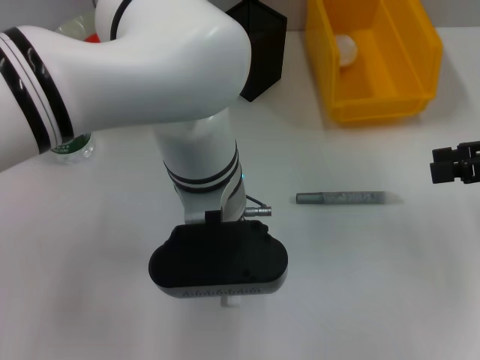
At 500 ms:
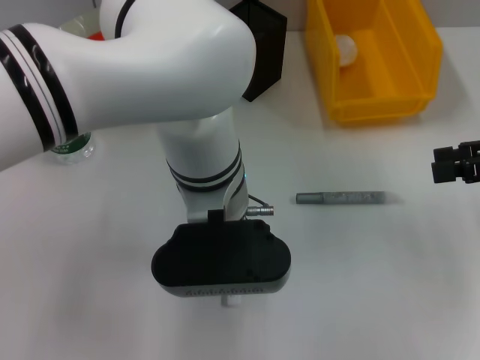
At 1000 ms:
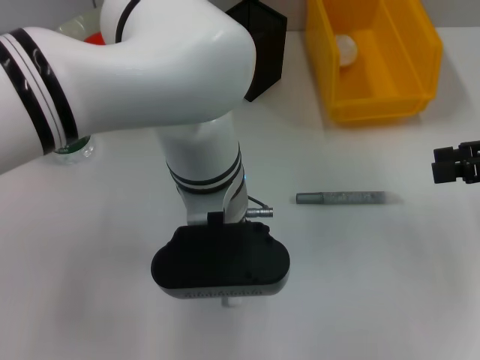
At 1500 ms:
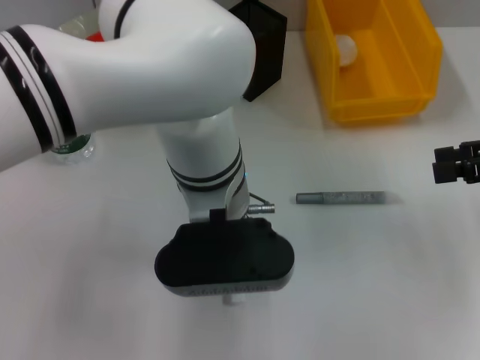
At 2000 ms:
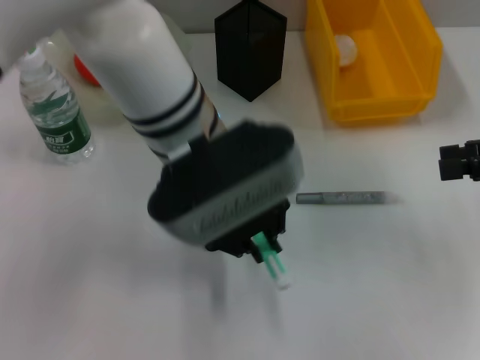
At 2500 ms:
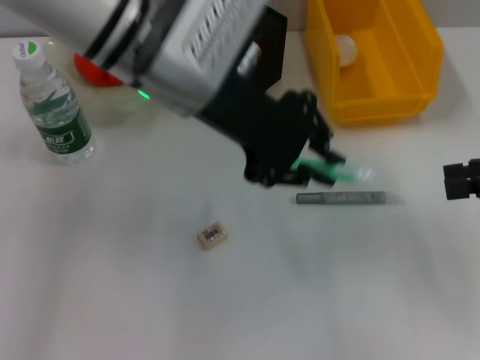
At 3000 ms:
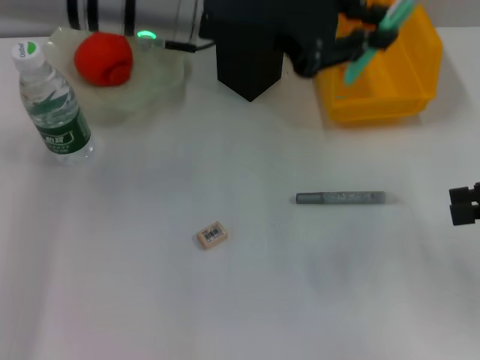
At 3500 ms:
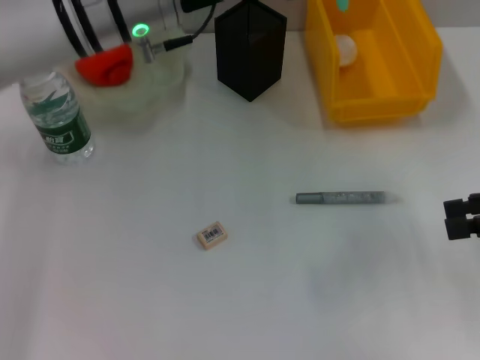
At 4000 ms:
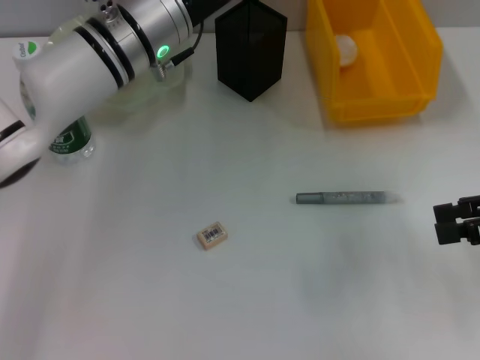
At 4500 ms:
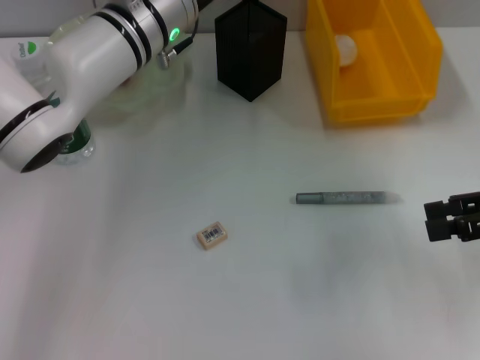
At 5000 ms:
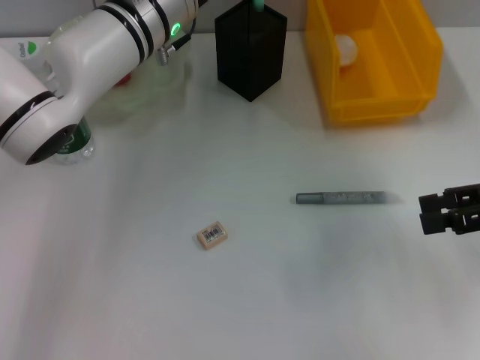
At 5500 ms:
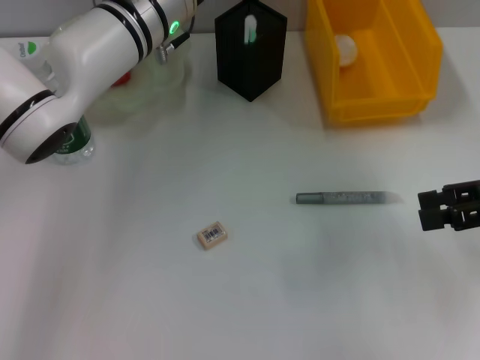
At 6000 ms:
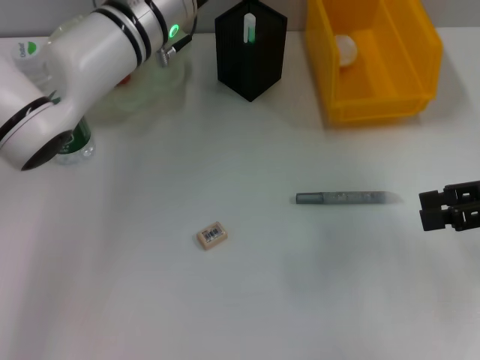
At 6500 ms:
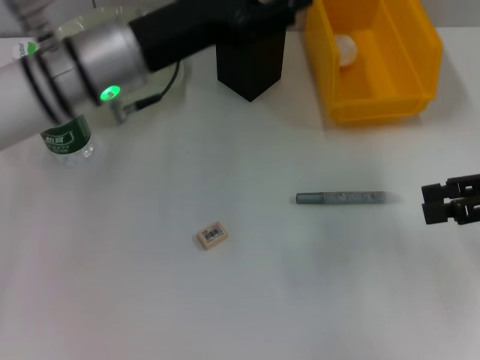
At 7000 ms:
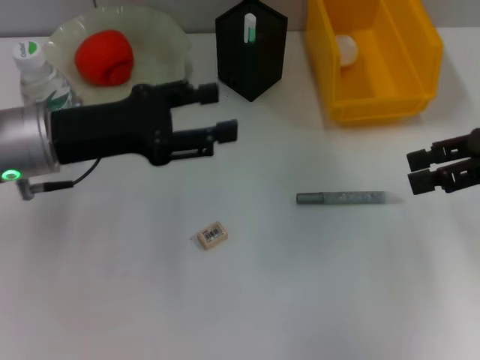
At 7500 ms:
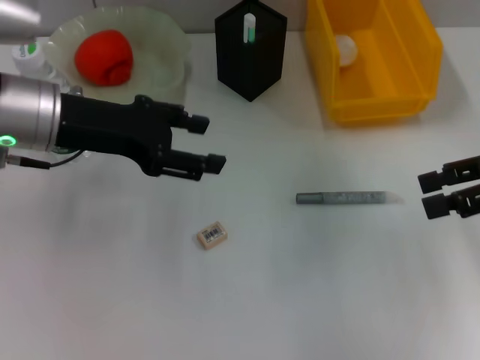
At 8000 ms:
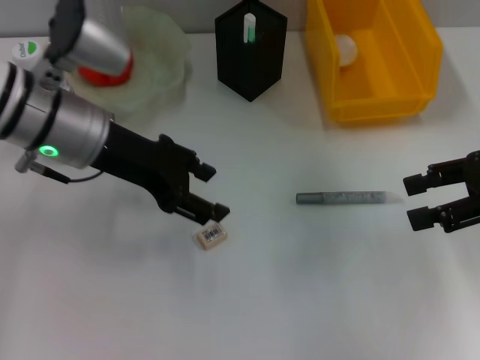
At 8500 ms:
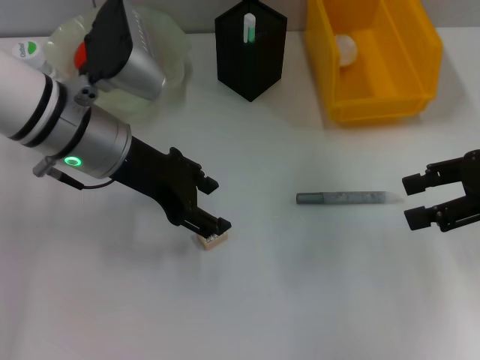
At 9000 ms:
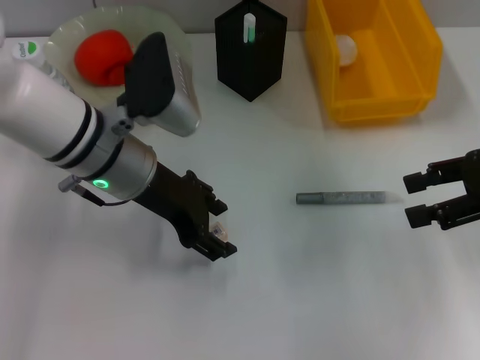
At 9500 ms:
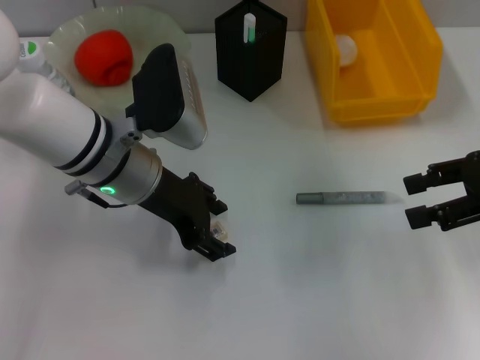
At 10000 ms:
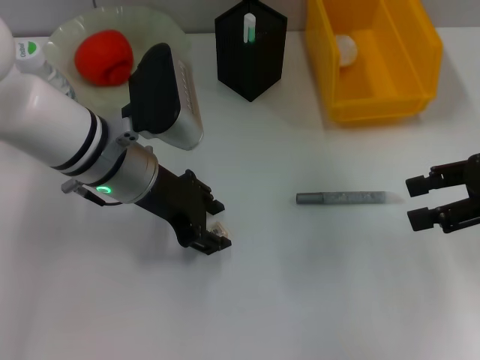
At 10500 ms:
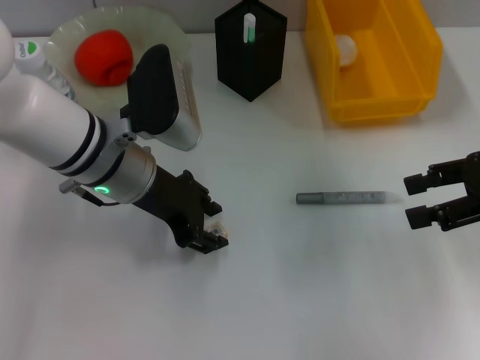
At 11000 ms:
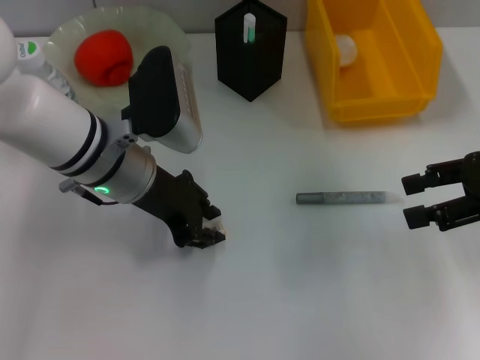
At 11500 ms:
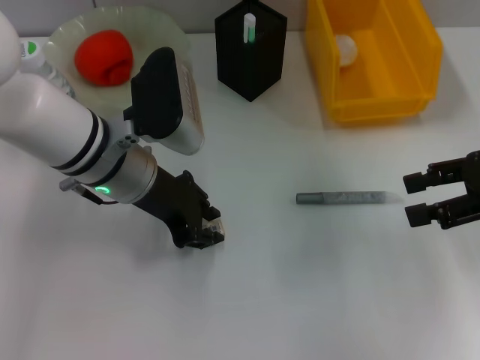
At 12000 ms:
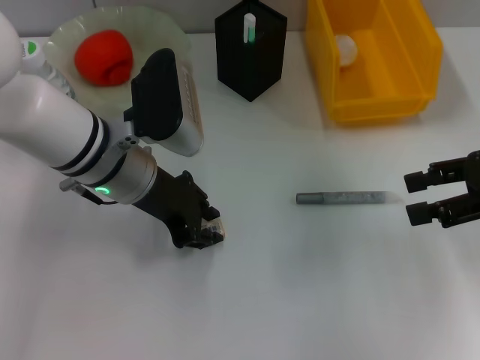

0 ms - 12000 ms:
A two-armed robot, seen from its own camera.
Step, 1500 ms - 5500 ms: Place the blue utility knife into the pen holder with the left hand.
0 ms - 2000 ms: The left gripper shifts by approximately 5 cm.
2000 ms - 4000 ms: The left gripper travels forward and to the left by some 10 cm, and moves roughly 5 cm upward and comes back.
4000 ms - 6000 ms: The left gripper opens its fingers.
6000 ms - 8000 ms: The left gripper goes approximately 10 cm backward and to the left.
8000 ms - 10000 ms: The left gripper moves roughly 5 cm.
10000 ms - 12000 ms: The left gripper closes up.

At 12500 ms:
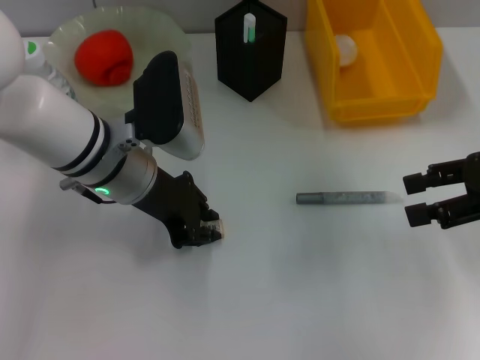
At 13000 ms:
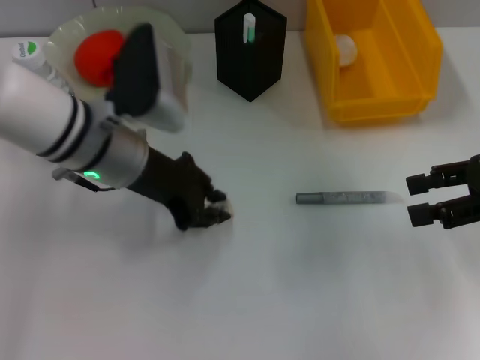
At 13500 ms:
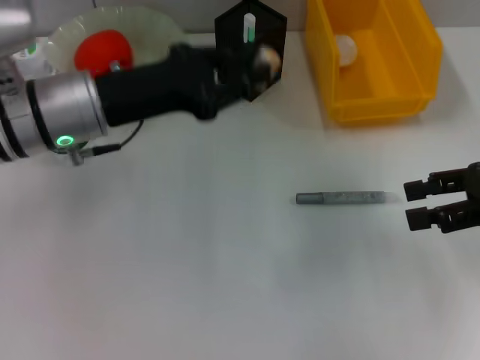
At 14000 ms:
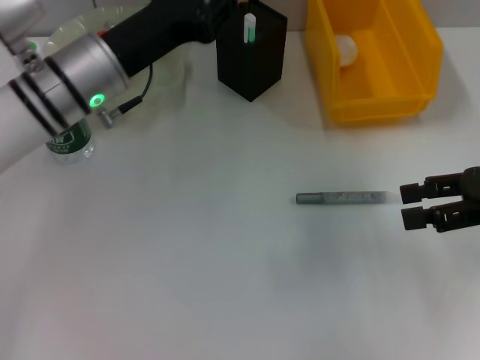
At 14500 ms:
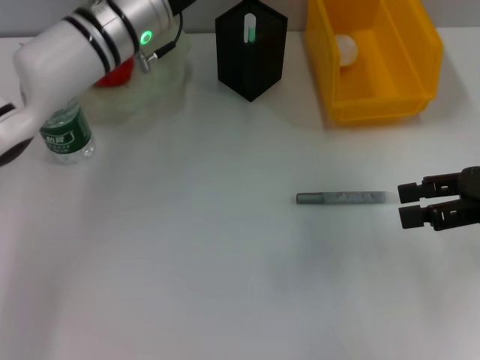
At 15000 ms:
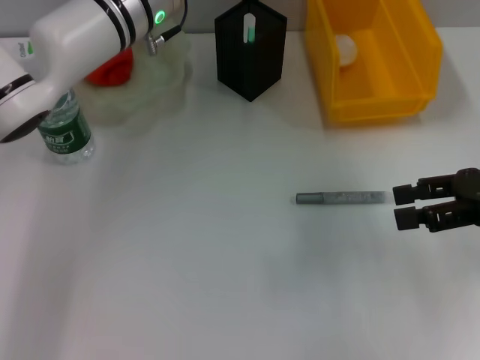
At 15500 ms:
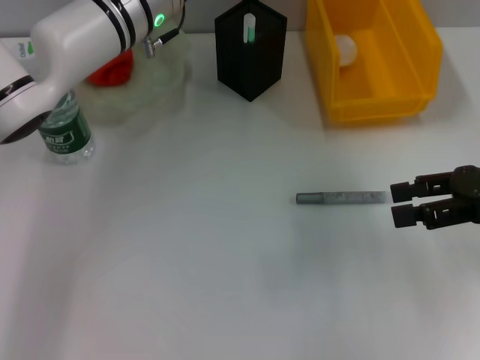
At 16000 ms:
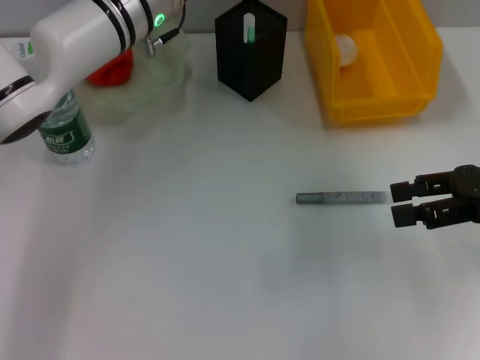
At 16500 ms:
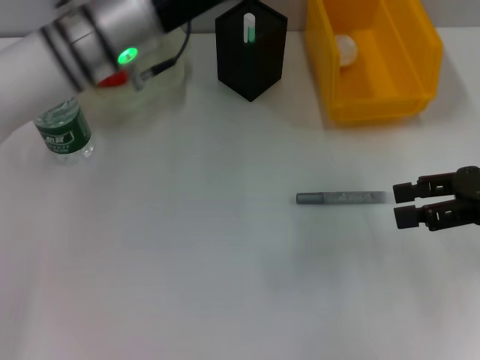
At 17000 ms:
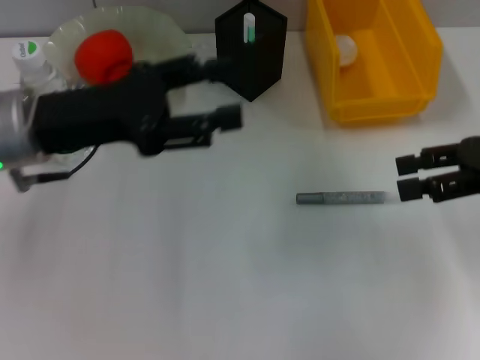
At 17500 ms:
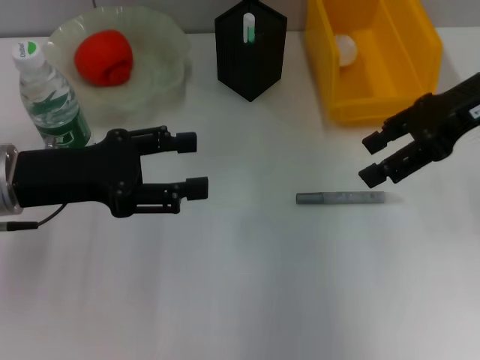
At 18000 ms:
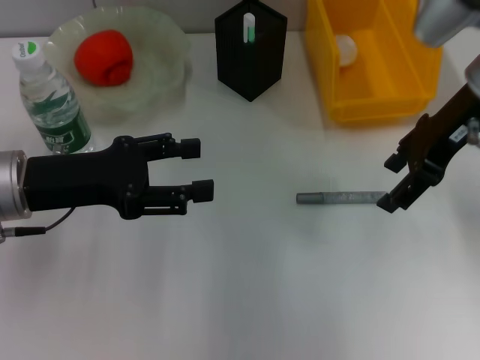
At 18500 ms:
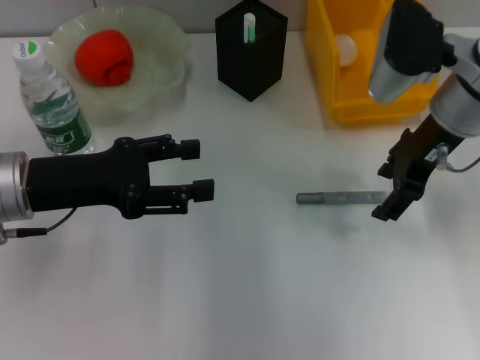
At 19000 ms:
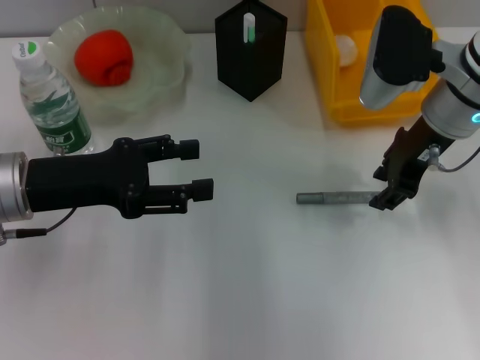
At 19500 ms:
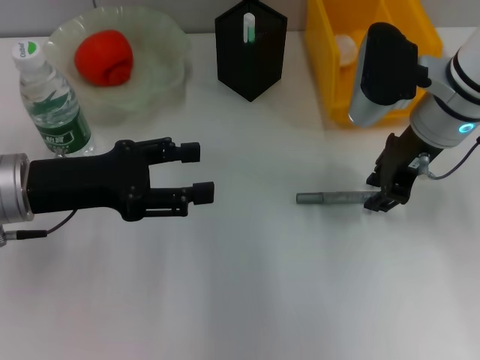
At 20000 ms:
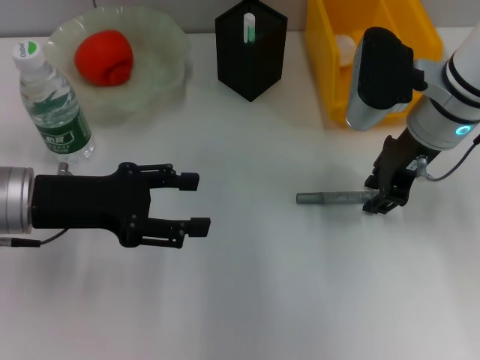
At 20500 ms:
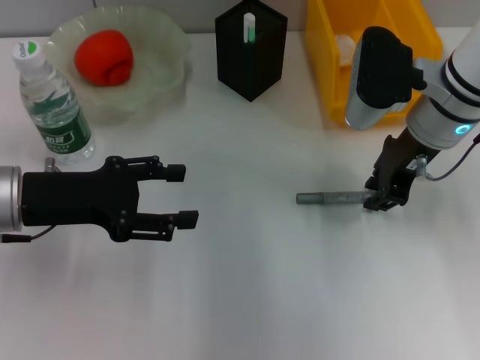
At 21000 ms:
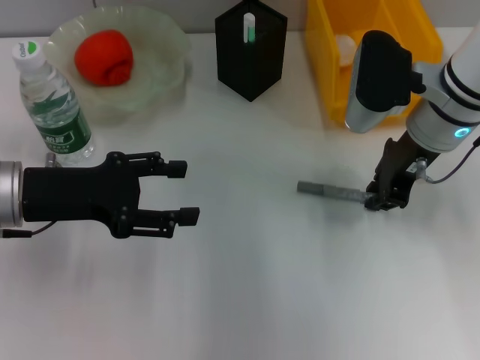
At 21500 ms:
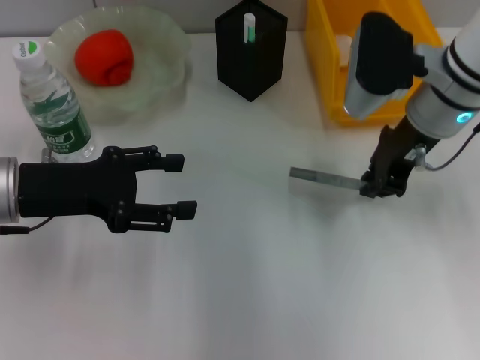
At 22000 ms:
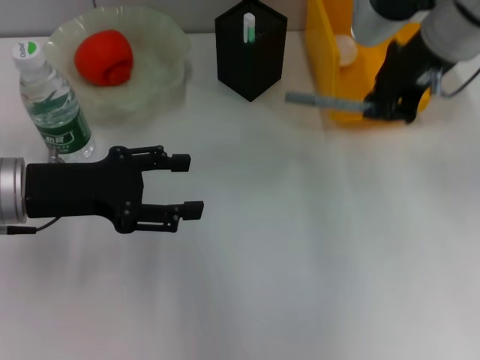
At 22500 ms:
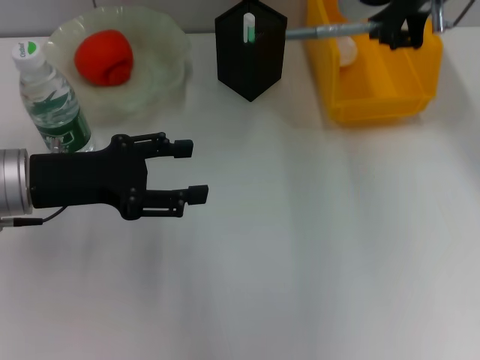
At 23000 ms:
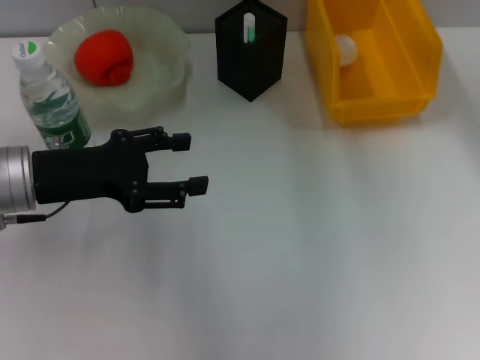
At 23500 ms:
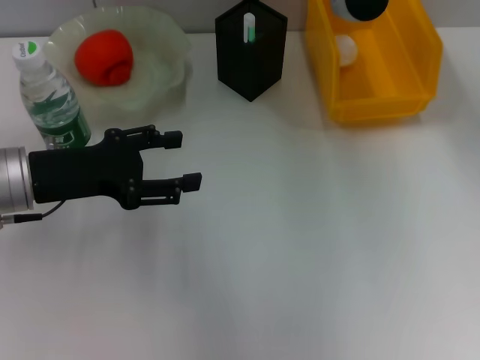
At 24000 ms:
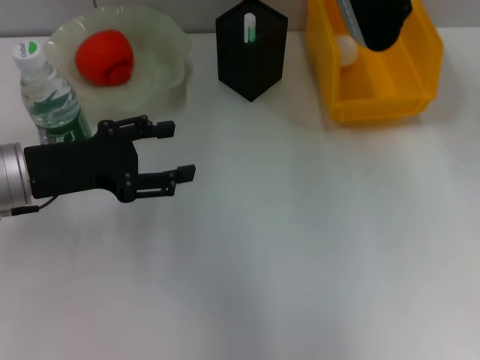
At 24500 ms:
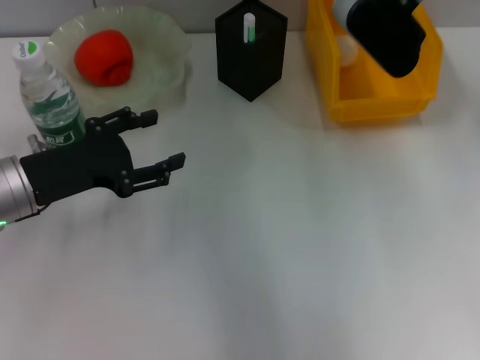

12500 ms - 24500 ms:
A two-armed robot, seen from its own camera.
Step, 13000 ms - 15500 ms: Place the eraser into the pen holder with the left hand.
Step, 16000 ms - 21000 ms: Grab the gray glue with the right hand.
12500 ms - 14500 ms: The left gripper goes some 10 cm forward.
14500 ms - 16500 ms: The left gripper changes place by some 5 cm, and opens up.
16500 ms - 18500 ms: The left gripper goes some 15 cm to the left, backward and downward, while the right gripper moves to the left and forward, some 15 cm.
18500 ms - 20500 ms: The right gripper closes up.
20500 ms - 22500 ms: The right gripper moves upward, some 15 cm.
22500 ms - 24500 ms: The right gripper moves downward and forward, about 10 cm.

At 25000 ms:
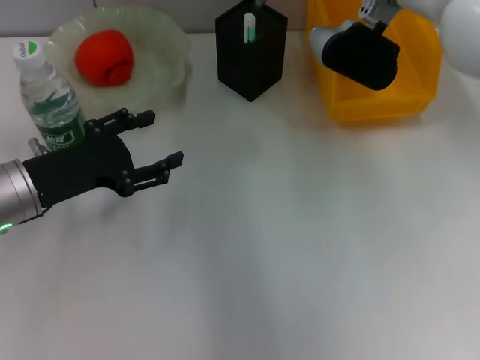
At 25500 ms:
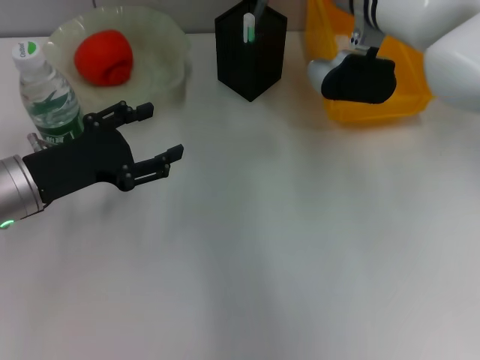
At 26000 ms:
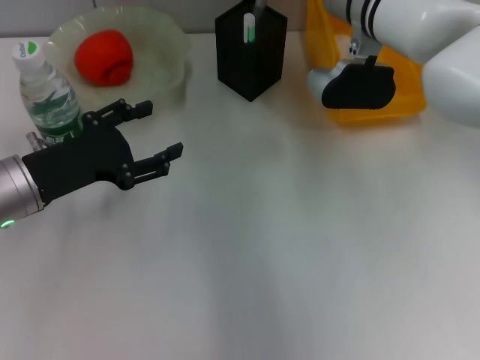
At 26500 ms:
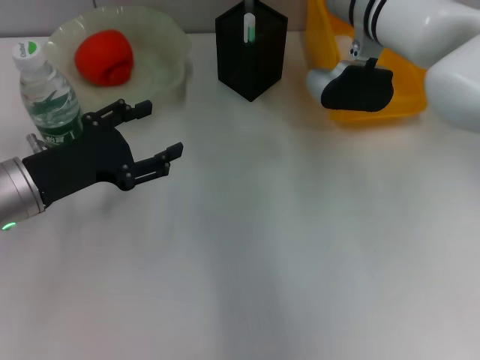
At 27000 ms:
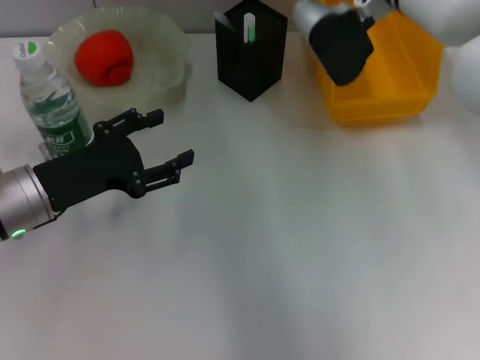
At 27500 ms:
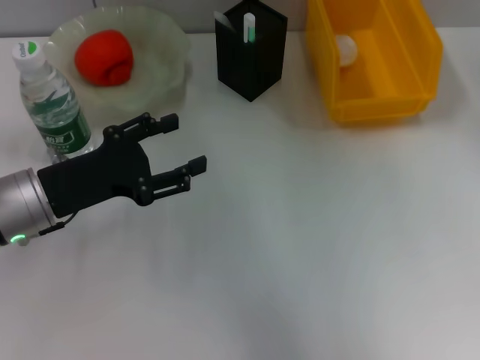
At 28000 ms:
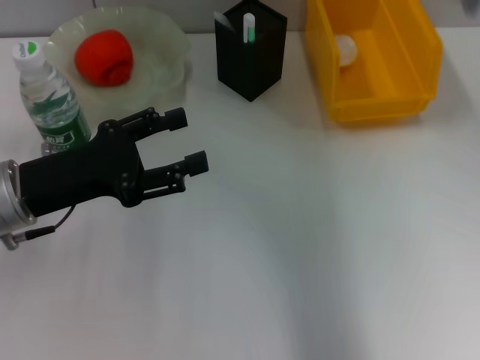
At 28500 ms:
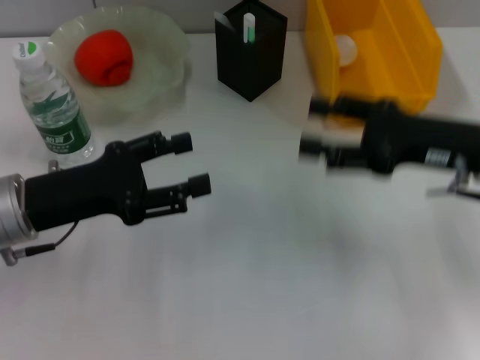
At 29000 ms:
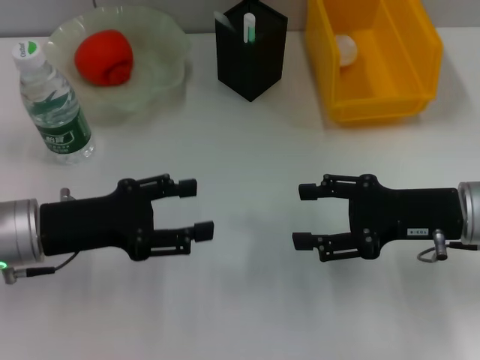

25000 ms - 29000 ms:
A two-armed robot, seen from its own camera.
25000 ms - 27000 ms: The right gripper opens up.
27000 ms - 29000 ms: The right gripper heads backward, downward and to the right, covering some 25 cm.
